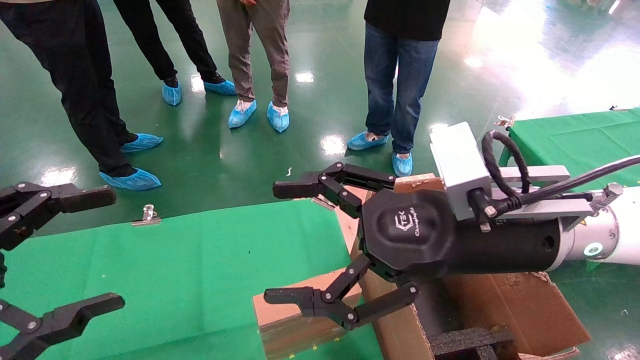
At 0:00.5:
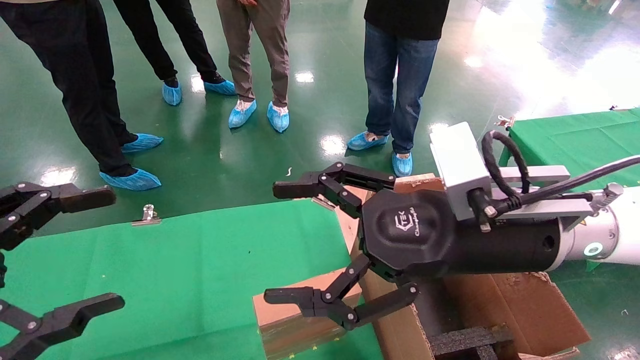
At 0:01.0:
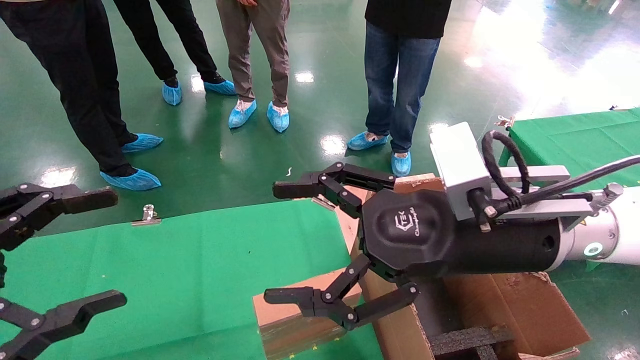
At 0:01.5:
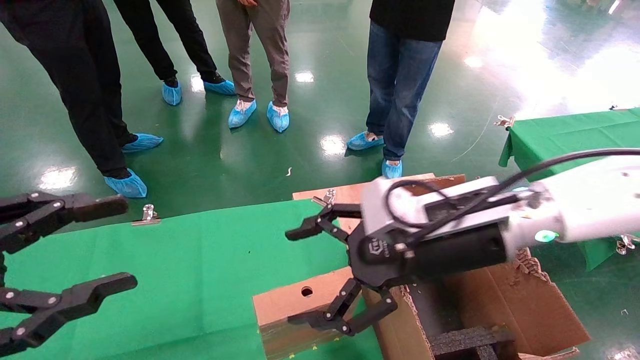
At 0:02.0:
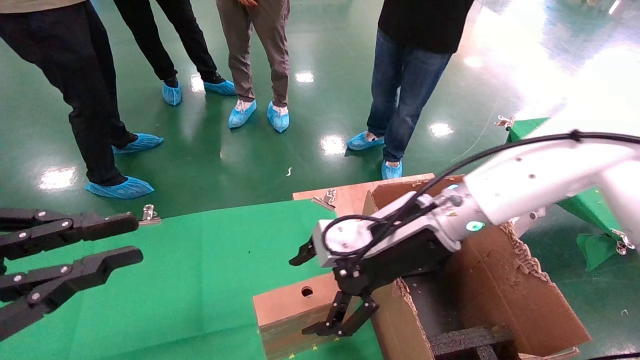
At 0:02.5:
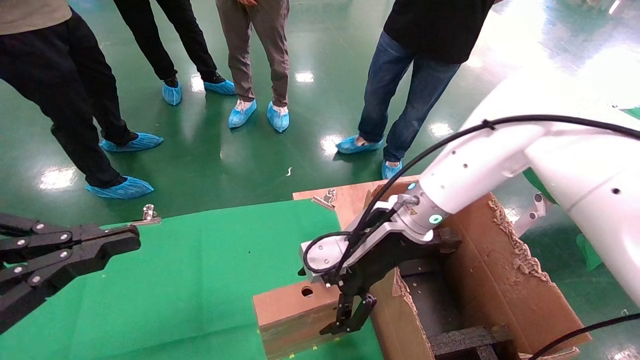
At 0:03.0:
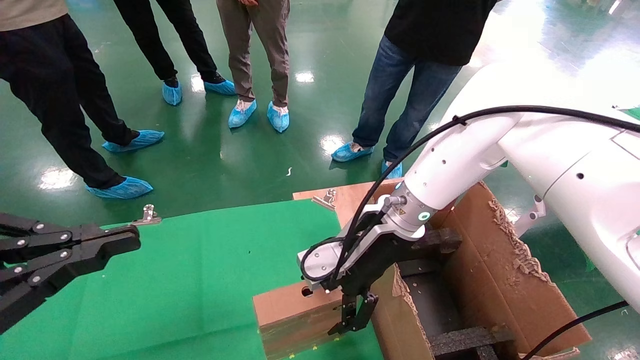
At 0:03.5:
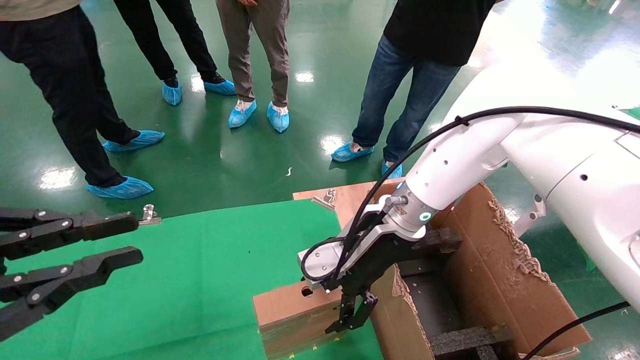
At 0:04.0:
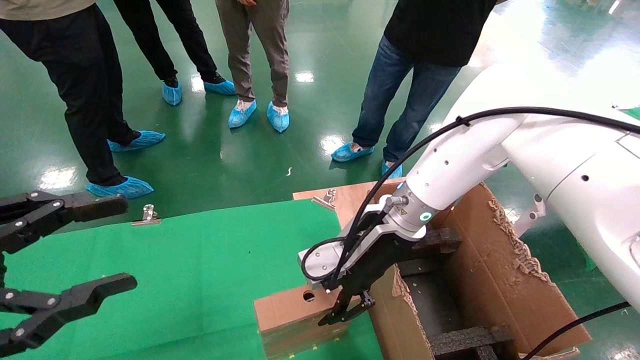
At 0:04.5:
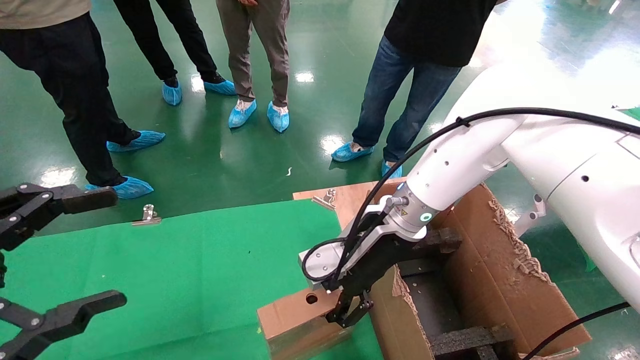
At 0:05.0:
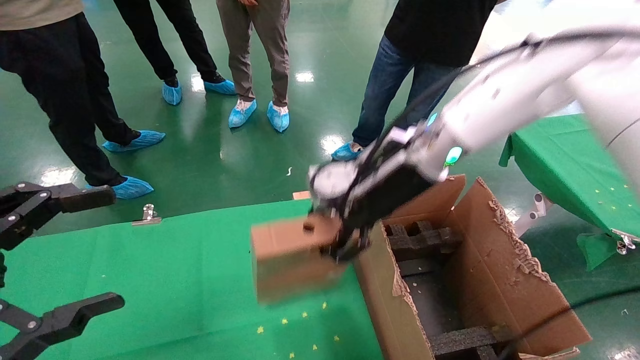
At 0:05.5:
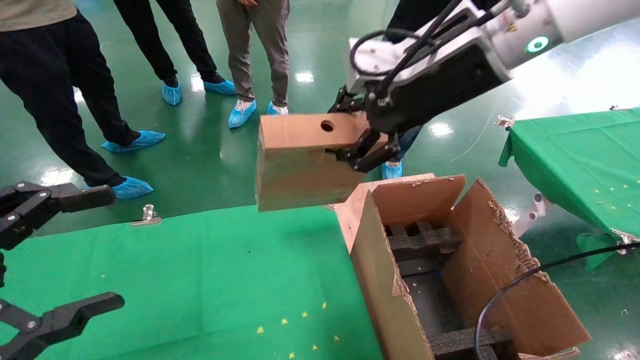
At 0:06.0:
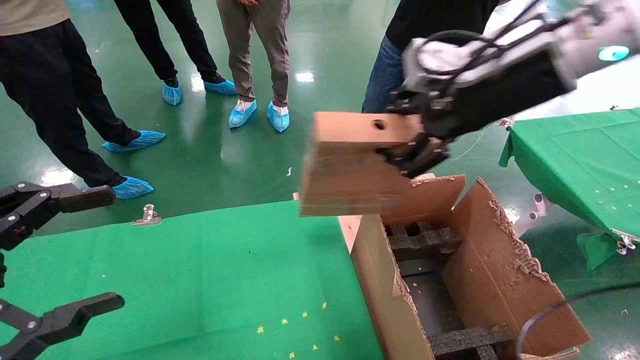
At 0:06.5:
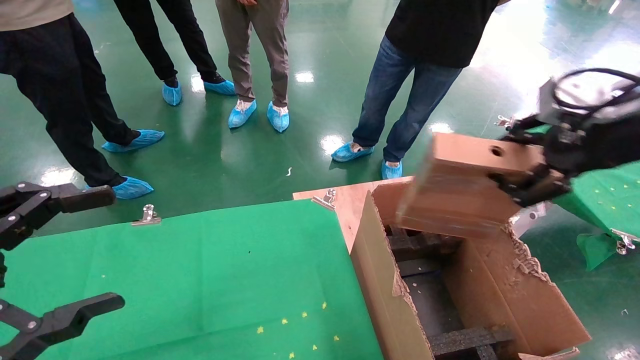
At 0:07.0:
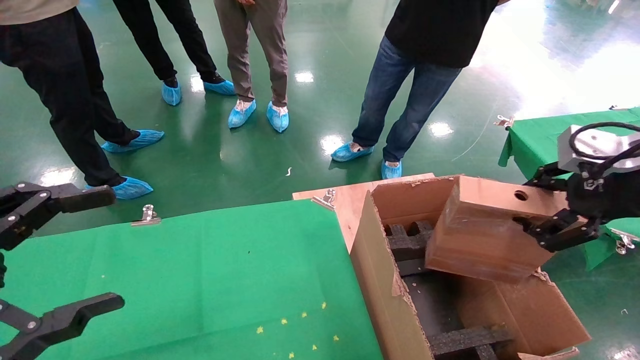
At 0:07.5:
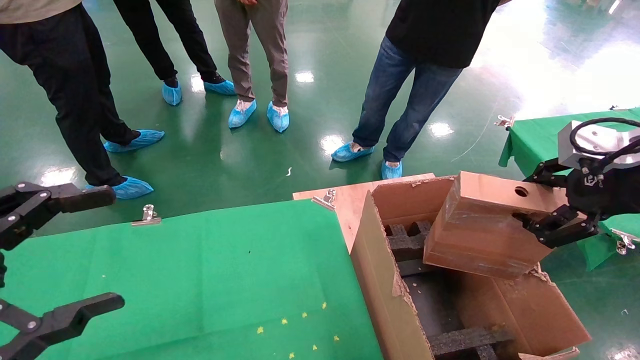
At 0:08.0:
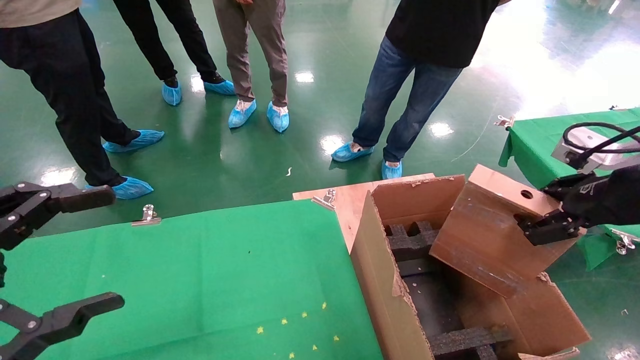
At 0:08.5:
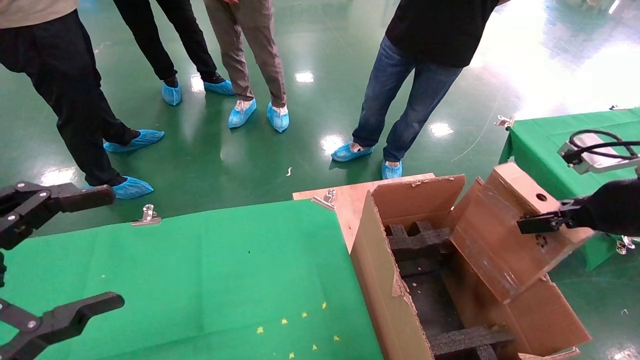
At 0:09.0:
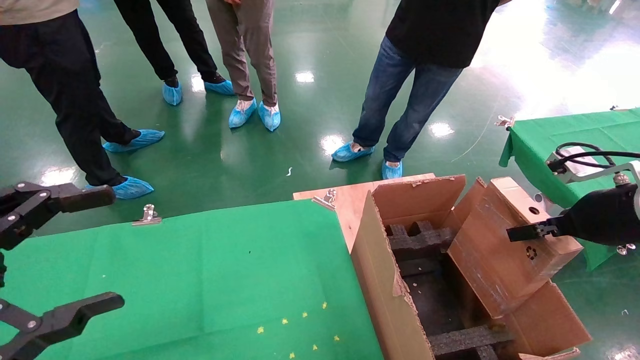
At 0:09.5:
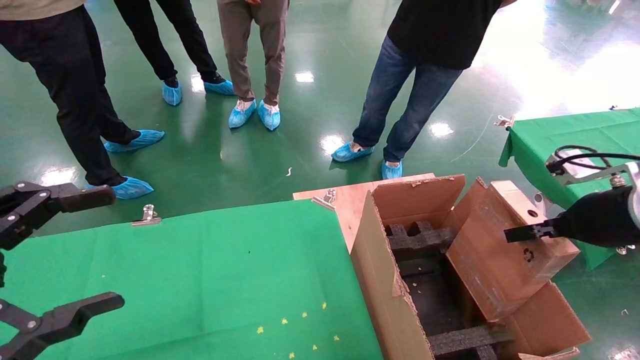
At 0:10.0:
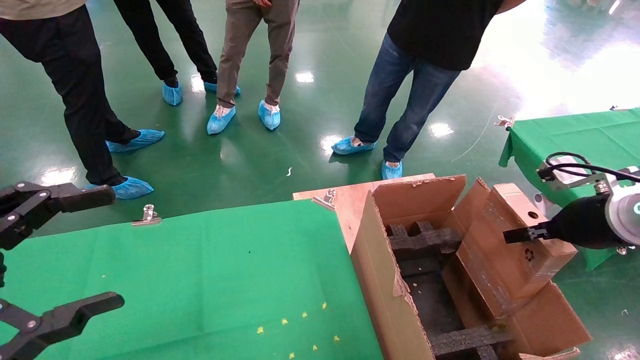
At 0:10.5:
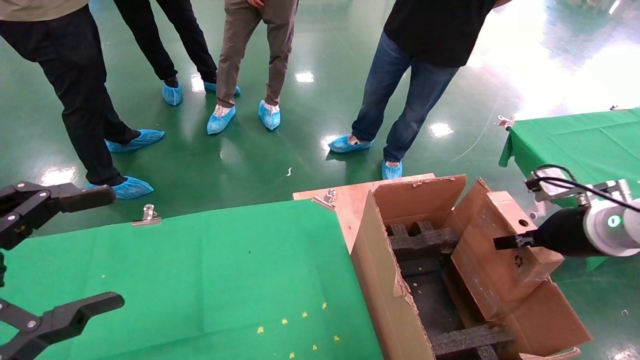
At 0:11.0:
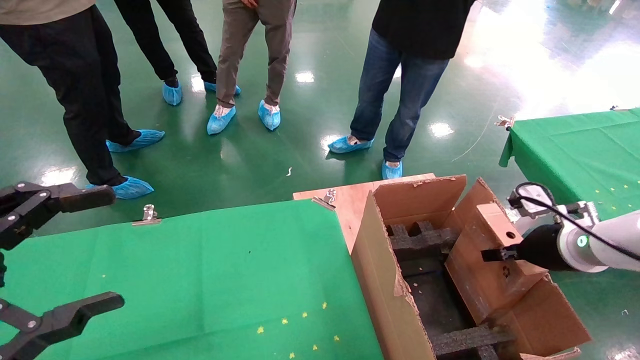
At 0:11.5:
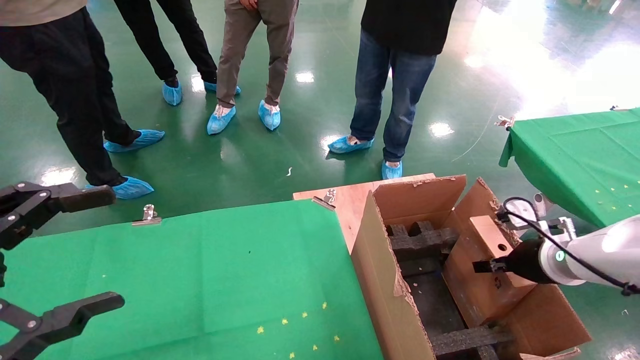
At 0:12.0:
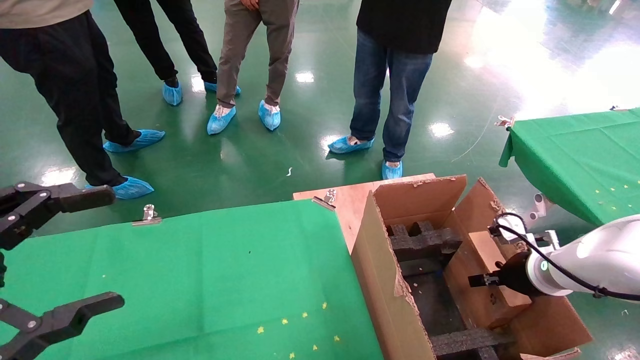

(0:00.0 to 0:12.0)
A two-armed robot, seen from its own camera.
Task of the whole recording: using a robotic arm to pick up a cardboard box and palace it the carton.
Step, 0:01.5 - 0:04.0: Pick up the mouse and the power cord paper box.
0:00.0 - 0:02.0: The right gripper goes approximately 10 cm forward. Meanwhile the left gripper closes.
0:02.0 - 0:04.0: The right gripper changes place by some 5 cm, and closes.
0:04.0 - 0:06.0: The left gripper opens. Meanwhile the right gripper is displaced upward and to the right by about 25 cm, and closes its fingers.
0:06.0 - 0:08.0: The right gripper heads to the right, downward and backward, covering approximately 20 cm.
0:08.0 - 0:10.0: The right gripper is displaced downward and forward by roughly 10 cm.
0:10.0 - 0:12.0: The right gripper is displaced downward and forward by roughly 15 cm.

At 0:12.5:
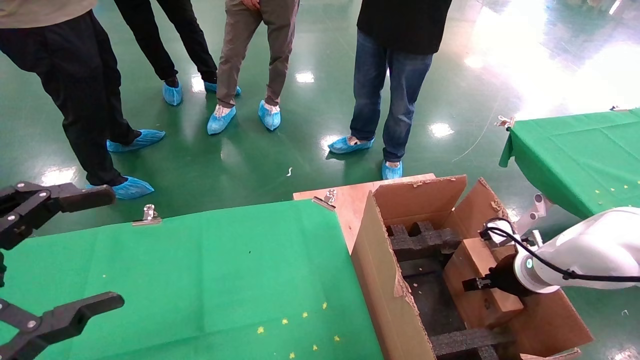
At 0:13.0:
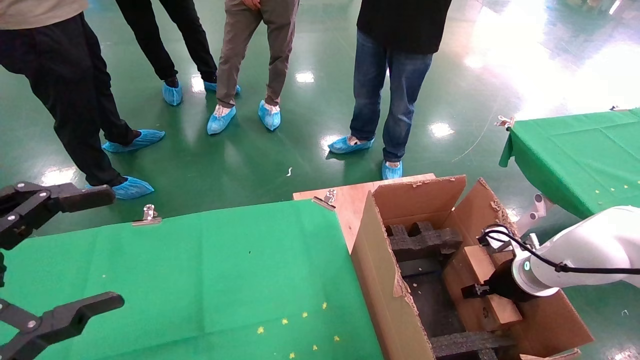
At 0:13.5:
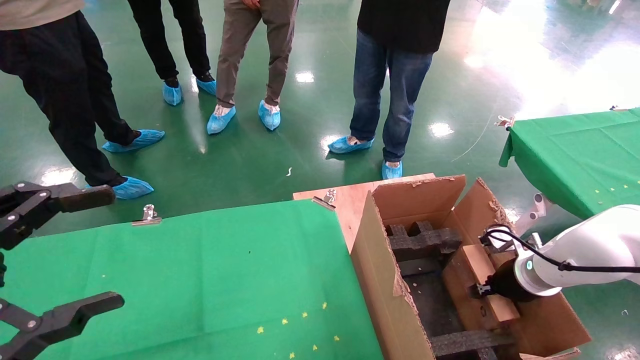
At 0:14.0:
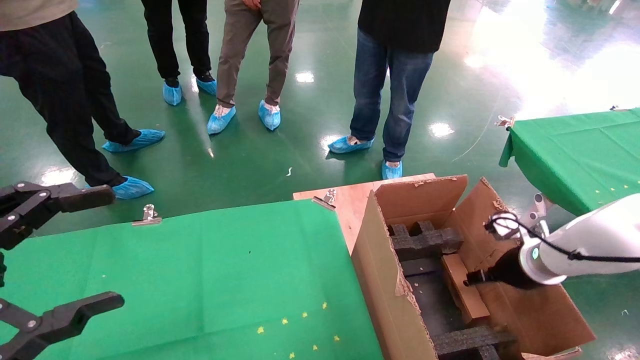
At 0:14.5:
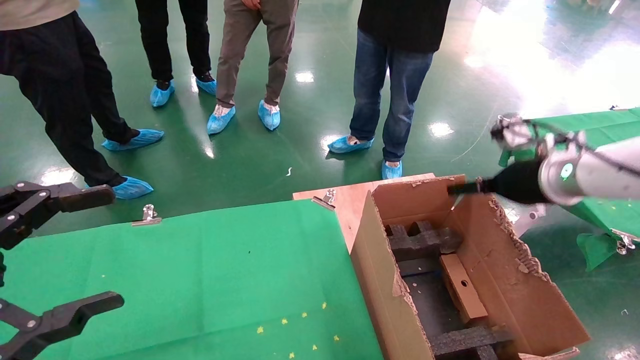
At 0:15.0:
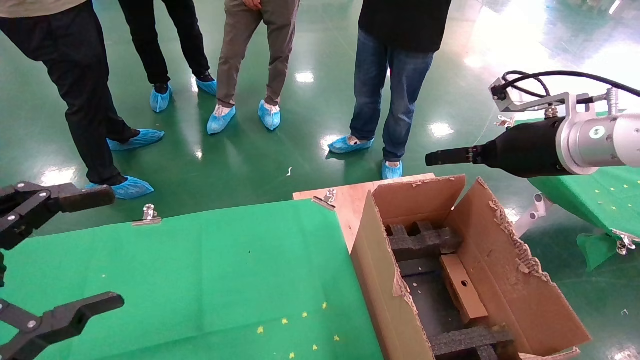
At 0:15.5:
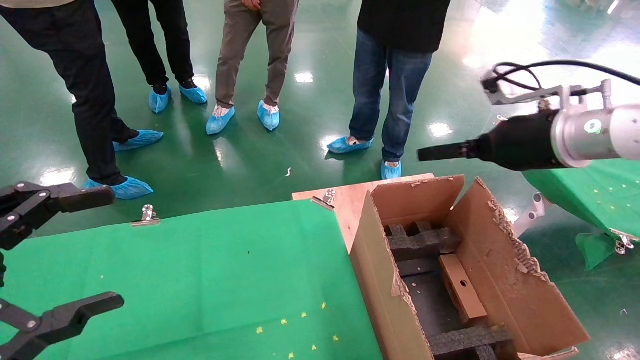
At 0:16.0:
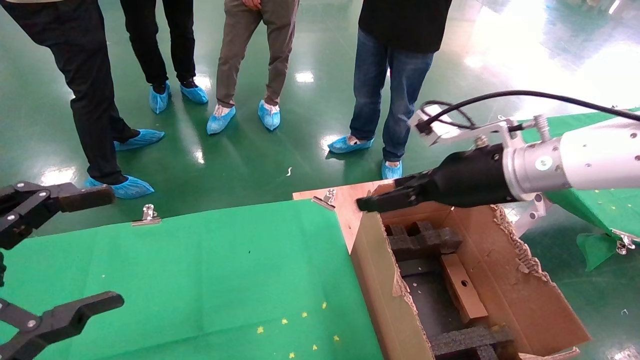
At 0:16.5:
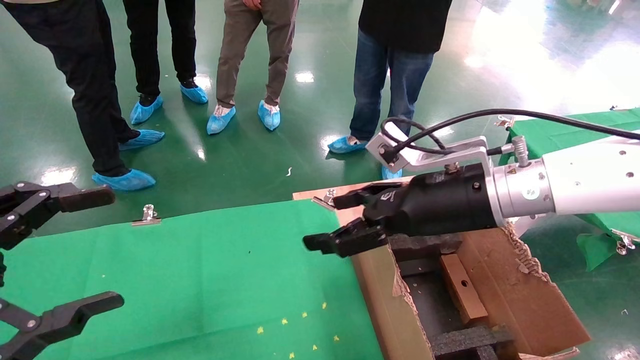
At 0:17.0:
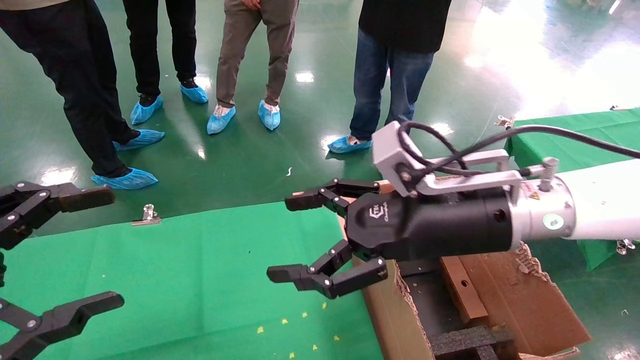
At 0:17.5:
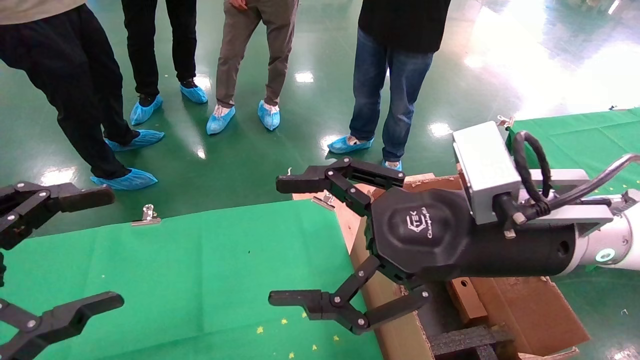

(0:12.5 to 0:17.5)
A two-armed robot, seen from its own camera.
Task of the whole recording: using a robotic arm to pick up a cardboard box and palace it the carton.
0:12.5 - 0:15.0: The right gripper moves upward, about 25 cm, and opens its fingers.
0:15.0 - 0:17.5: The right gripper heads to the left and backward, covering roughly 20 cm.
